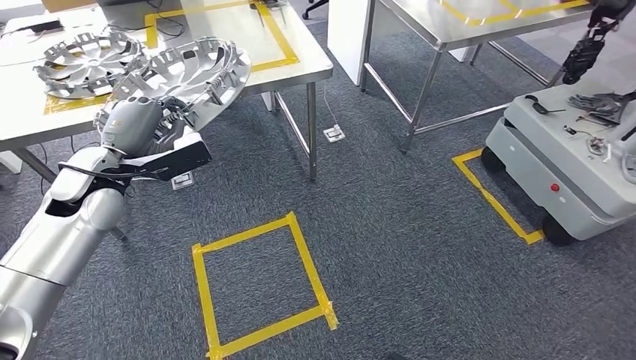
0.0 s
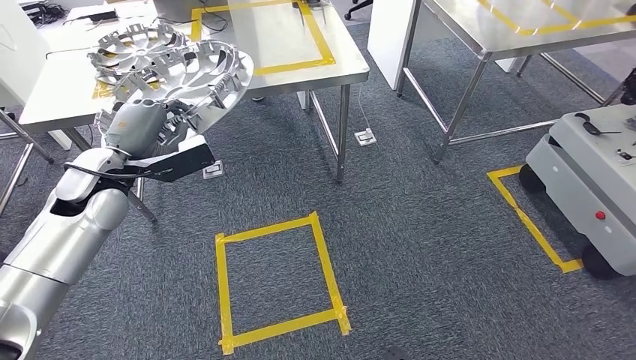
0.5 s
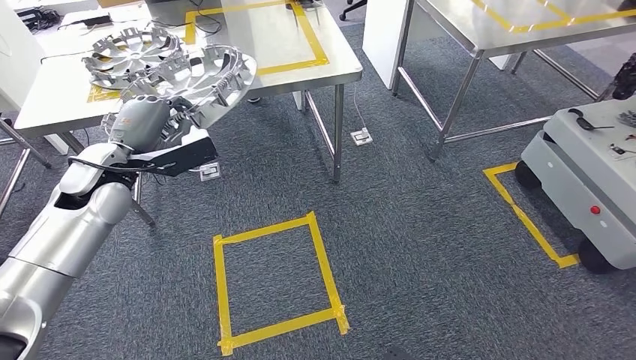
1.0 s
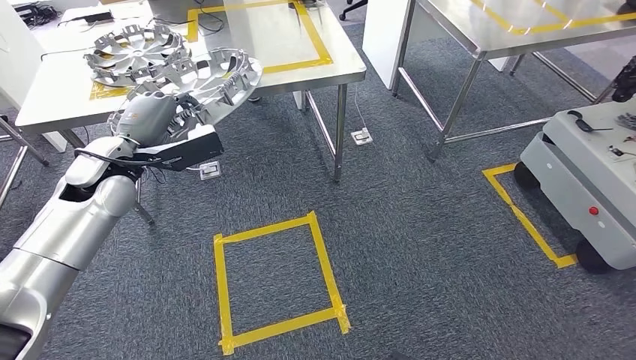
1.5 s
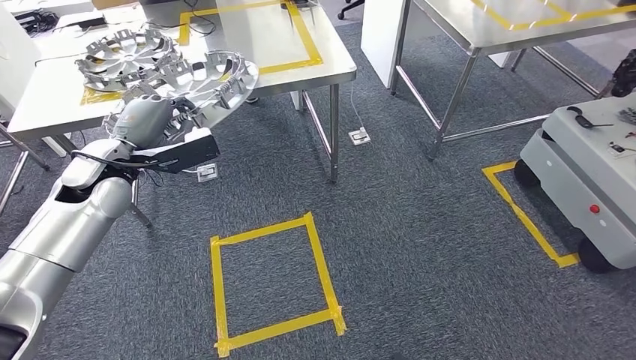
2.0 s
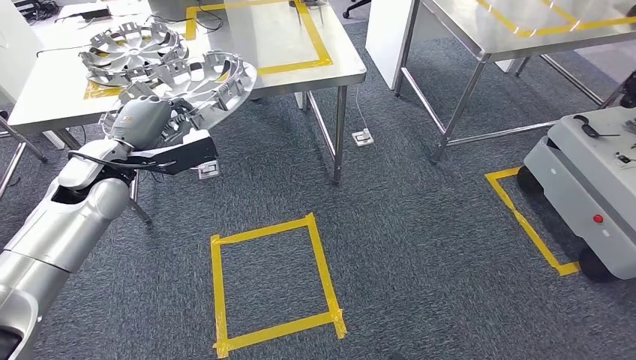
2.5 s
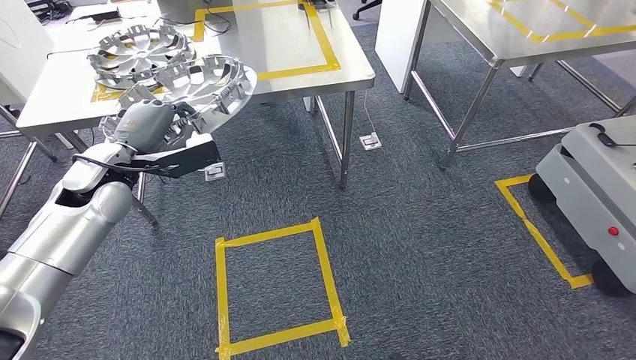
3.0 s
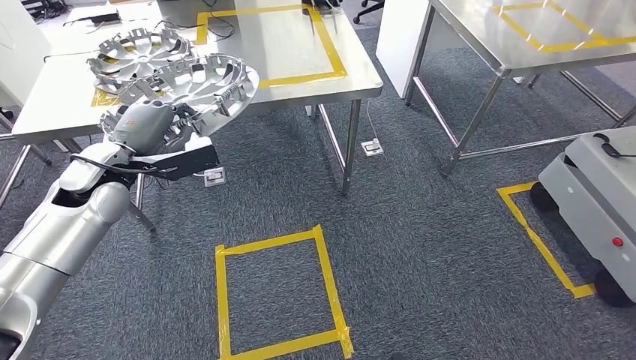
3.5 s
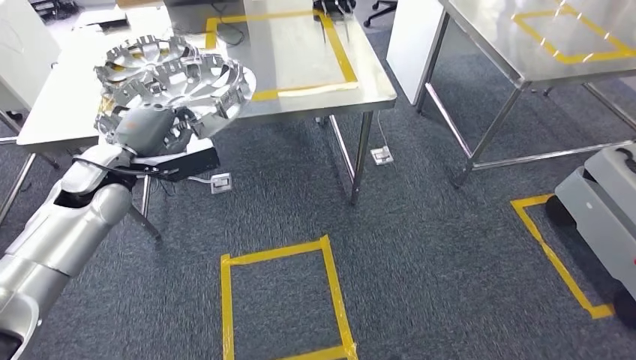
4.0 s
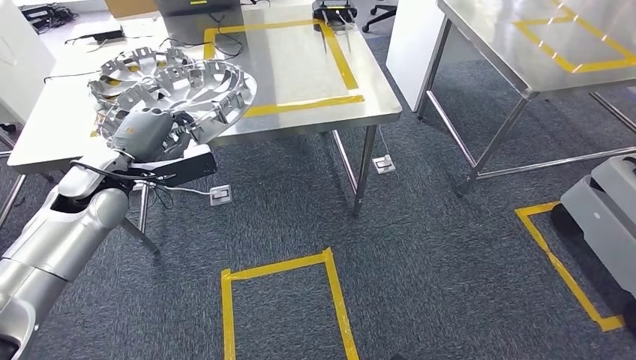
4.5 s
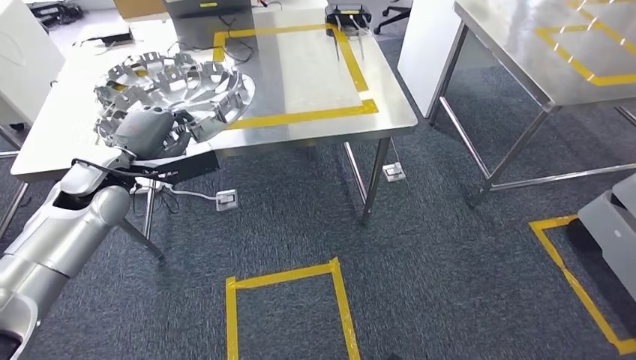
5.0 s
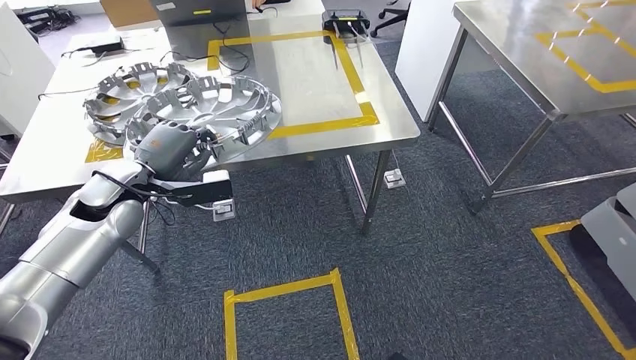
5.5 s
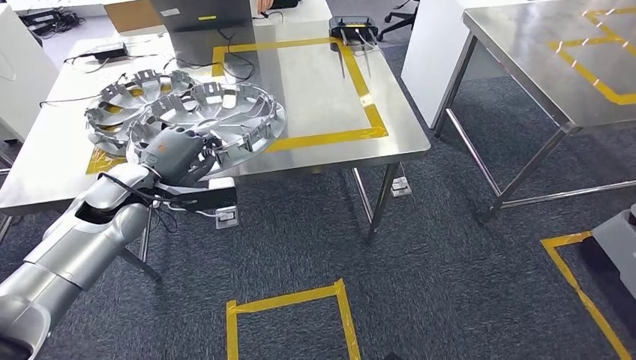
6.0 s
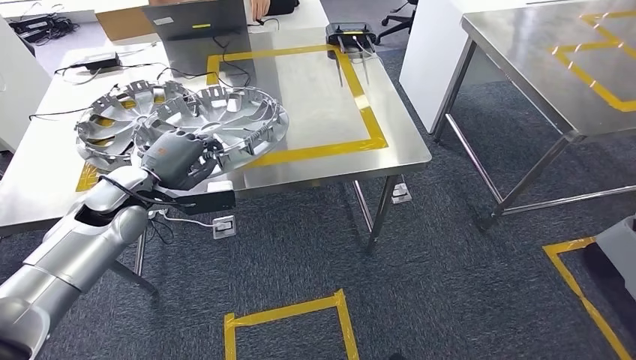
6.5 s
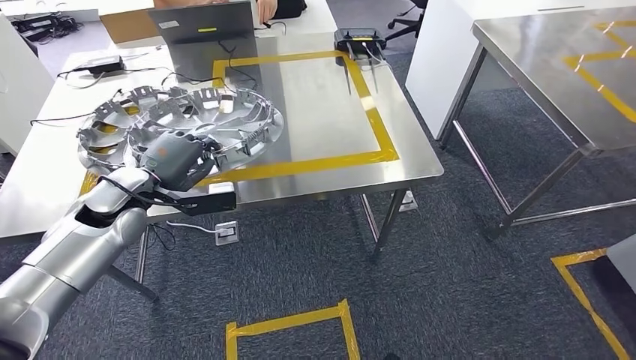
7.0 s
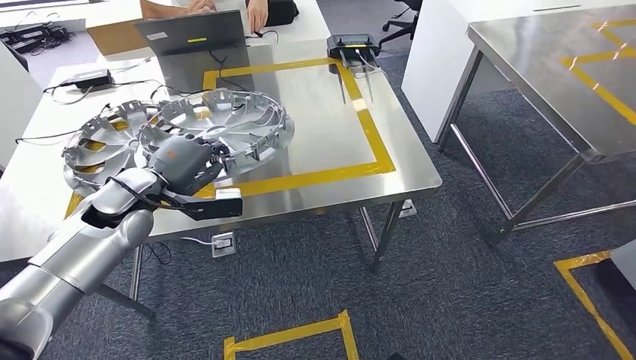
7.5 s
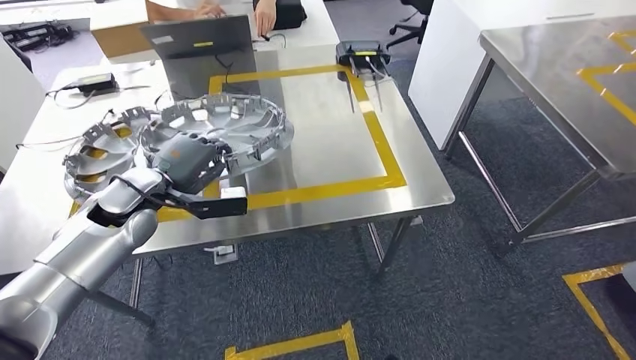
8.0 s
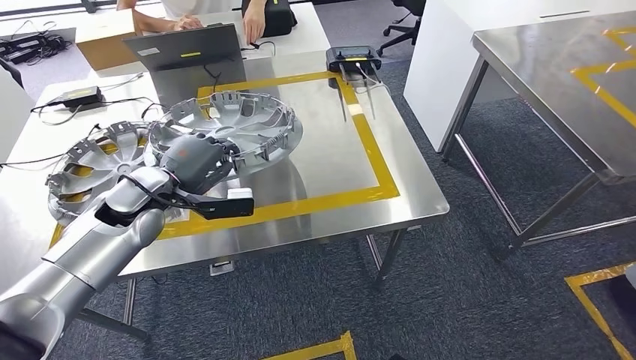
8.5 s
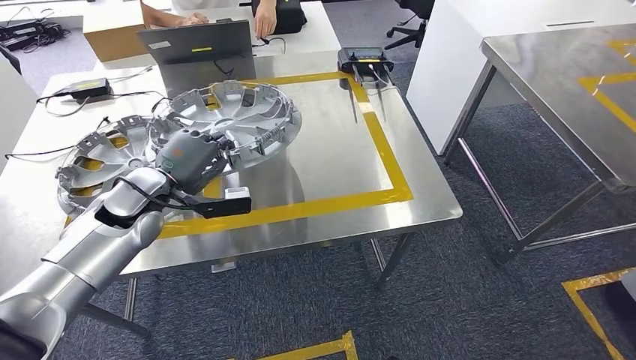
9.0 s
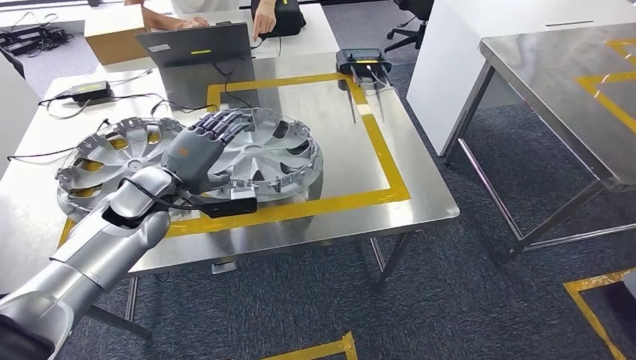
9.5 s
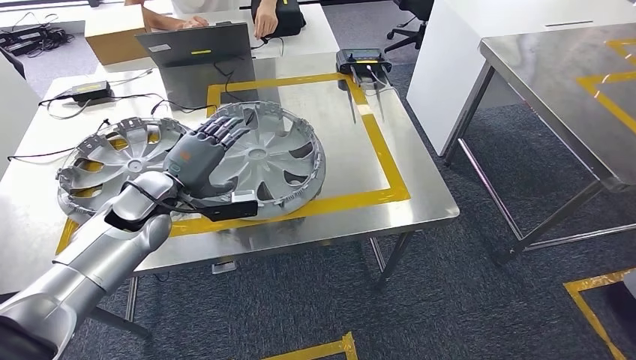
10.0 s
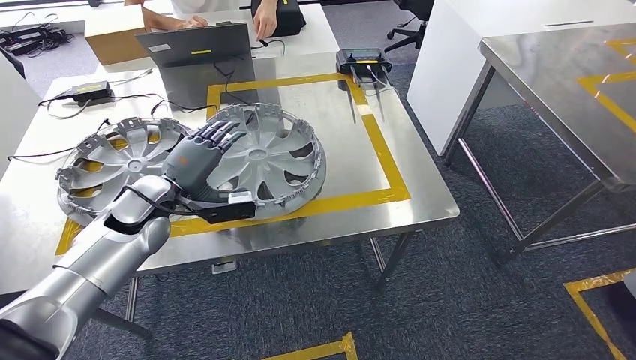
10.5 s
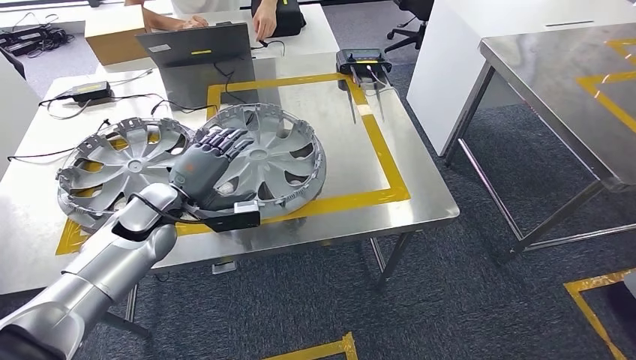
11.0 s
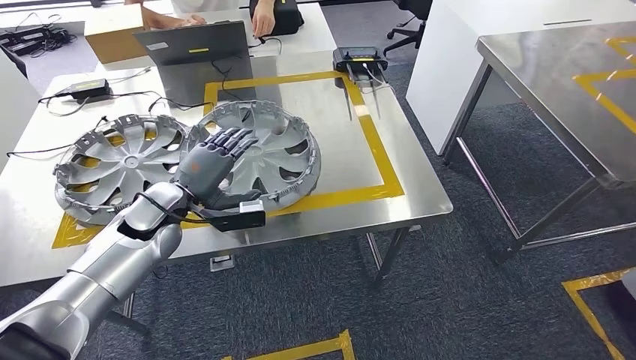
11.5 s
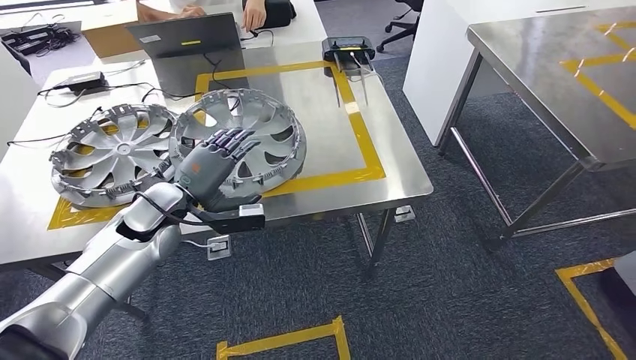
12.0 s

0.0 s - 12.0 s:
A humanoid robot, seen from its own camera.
Step, 1.5 s - 10.0 s: Insert the small component into the corresponding slot on the workbench.

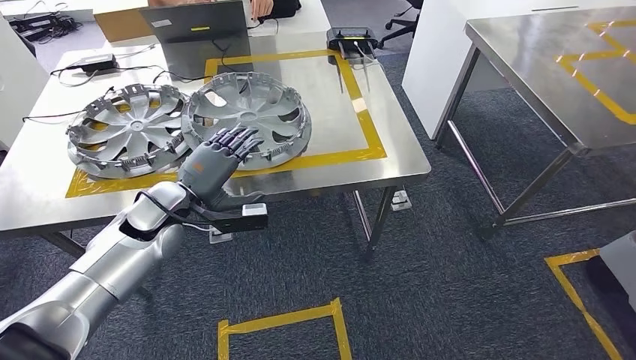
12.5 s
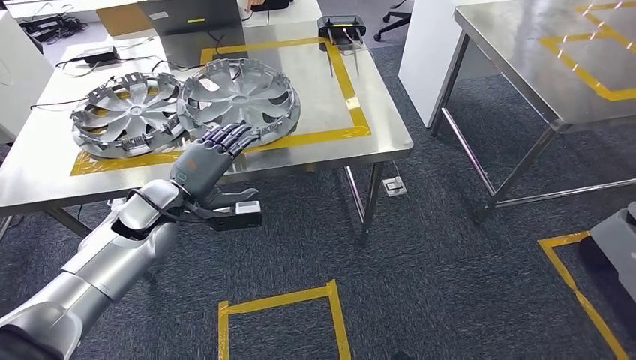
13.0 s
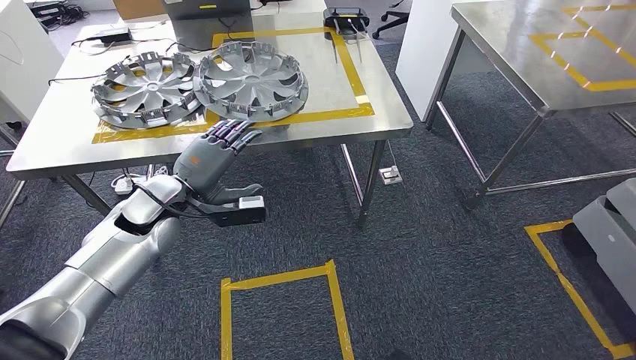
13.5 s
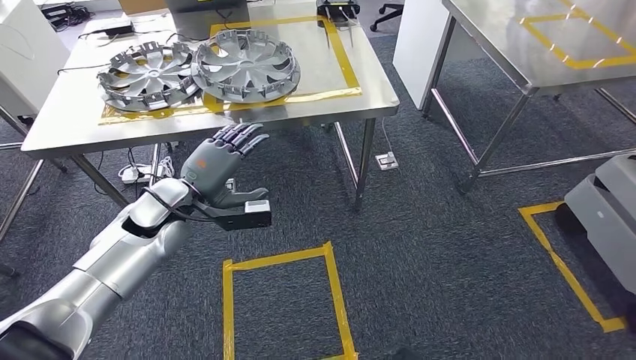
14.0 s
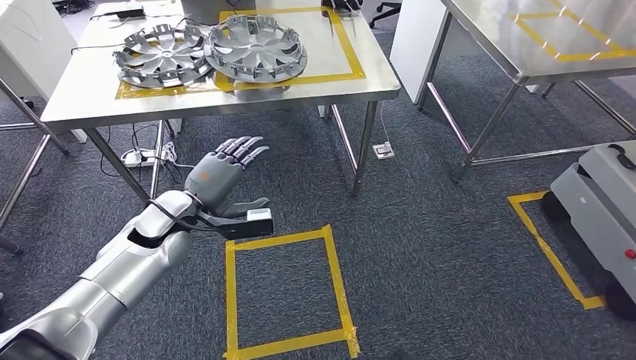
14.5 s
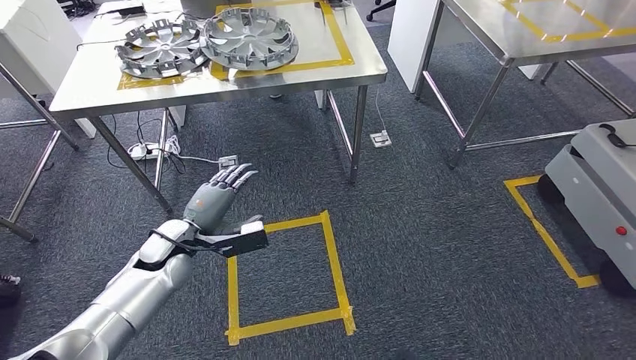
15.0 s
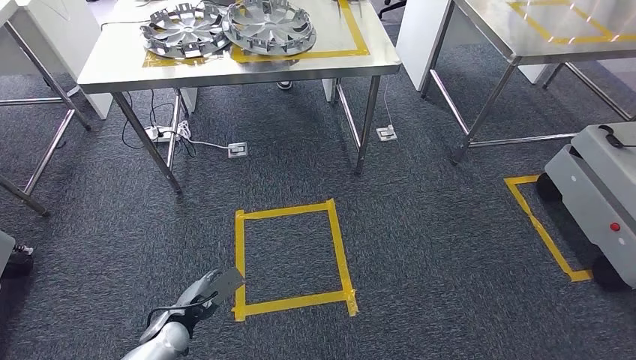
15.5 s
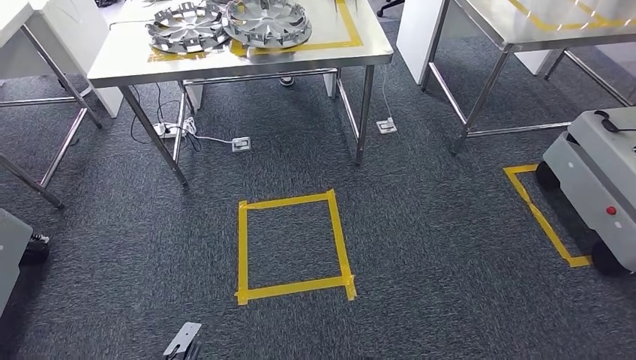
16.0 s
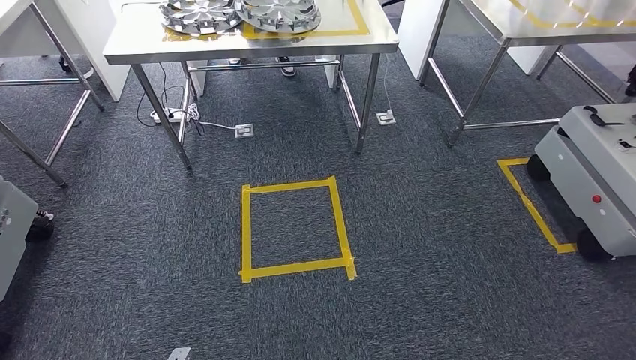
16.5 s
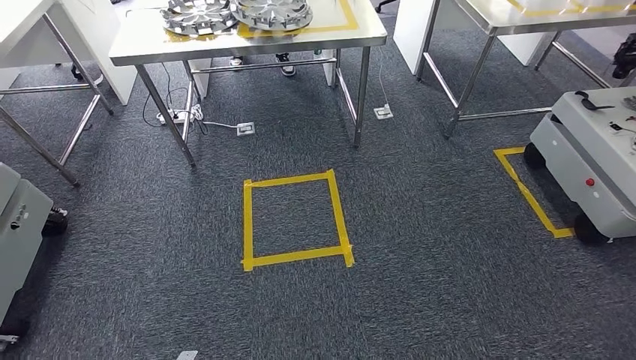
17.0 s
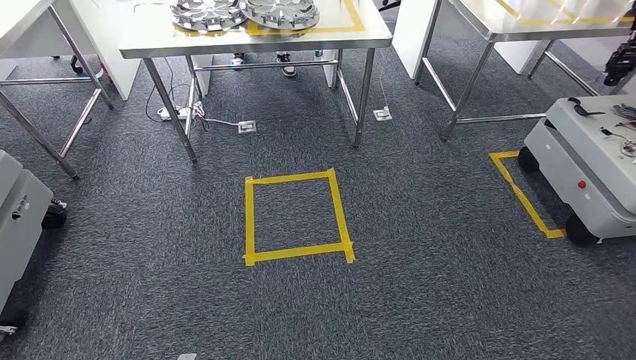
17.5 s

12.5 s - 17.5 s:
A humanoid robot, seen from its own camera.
Step, 12.5 s - 17.5 s: Return to the initial position at the workbench.
